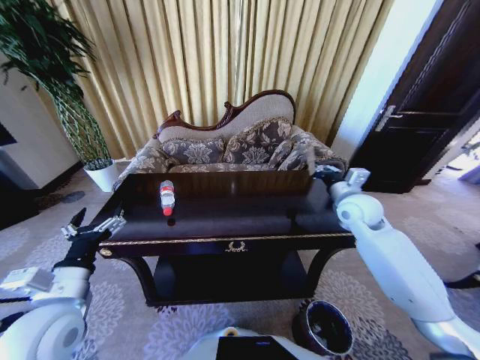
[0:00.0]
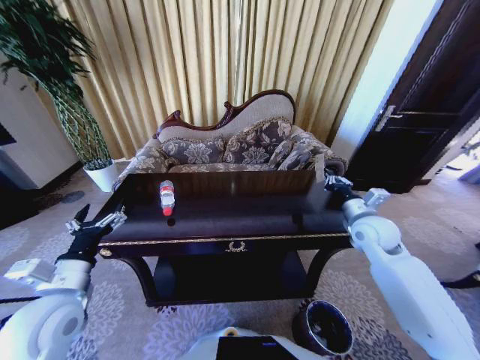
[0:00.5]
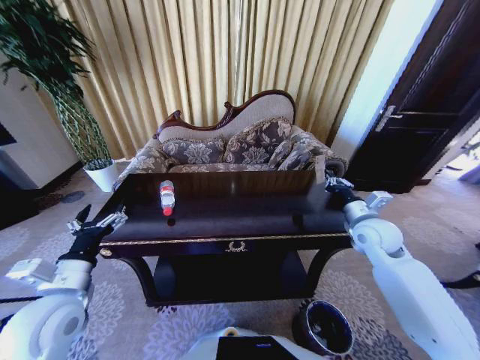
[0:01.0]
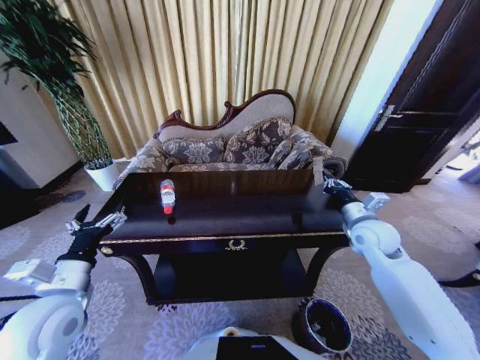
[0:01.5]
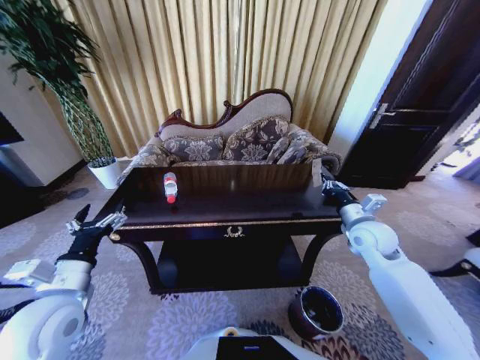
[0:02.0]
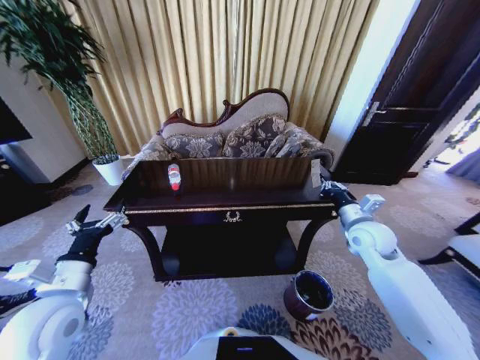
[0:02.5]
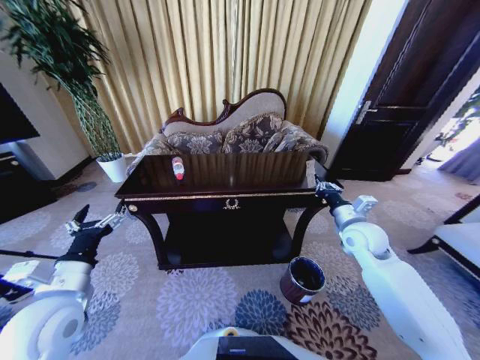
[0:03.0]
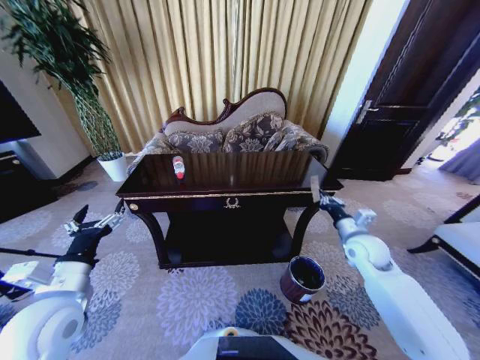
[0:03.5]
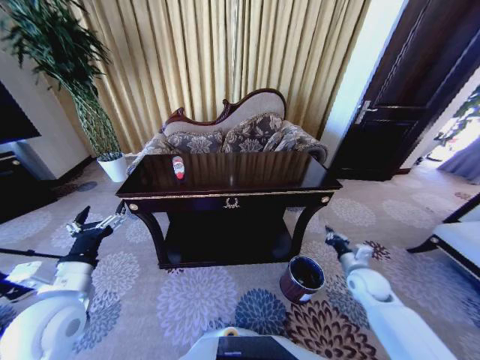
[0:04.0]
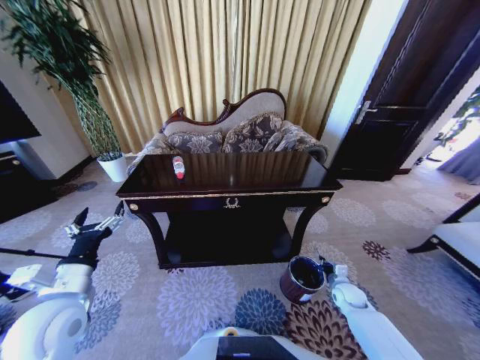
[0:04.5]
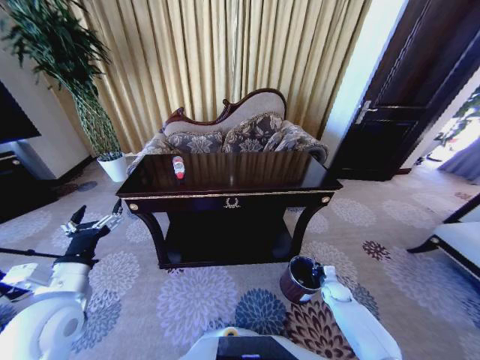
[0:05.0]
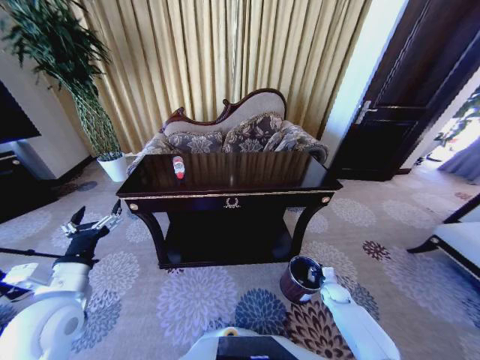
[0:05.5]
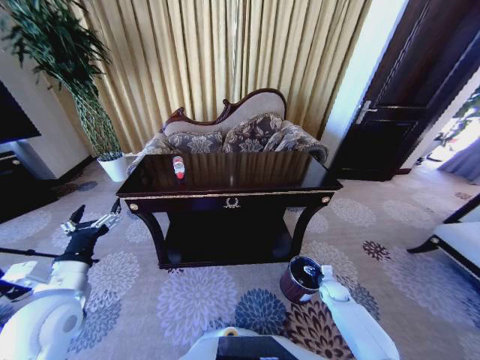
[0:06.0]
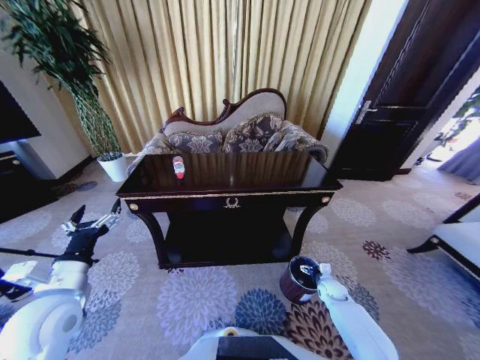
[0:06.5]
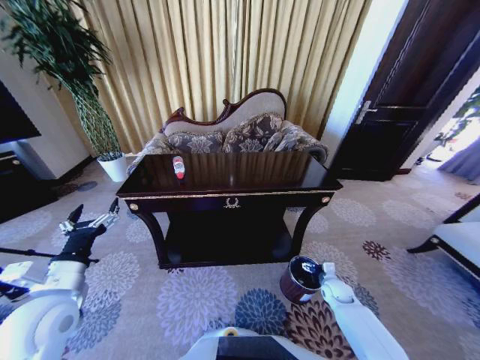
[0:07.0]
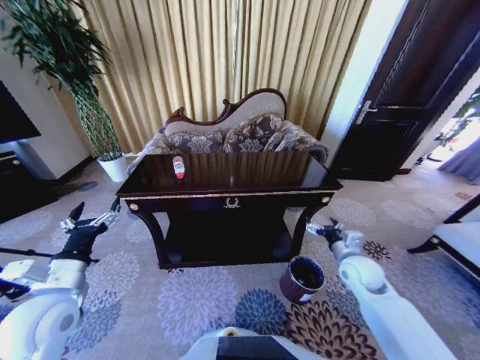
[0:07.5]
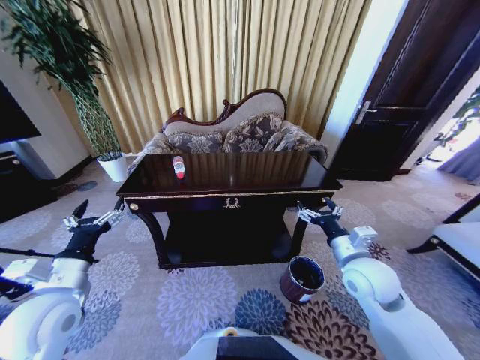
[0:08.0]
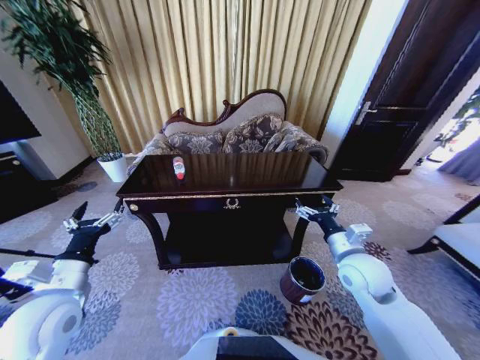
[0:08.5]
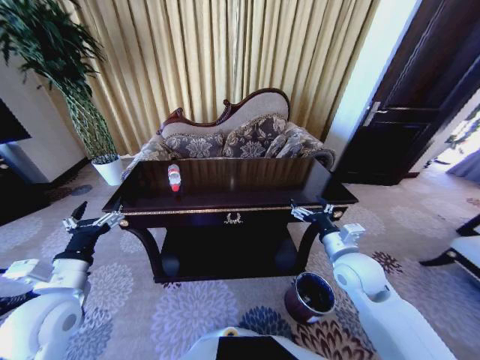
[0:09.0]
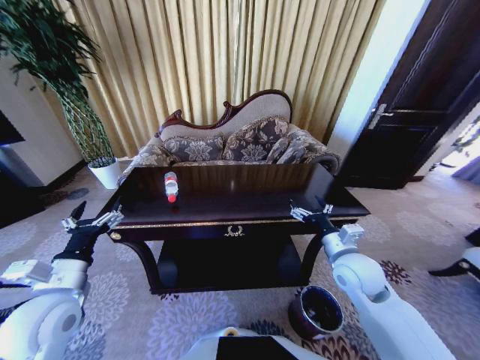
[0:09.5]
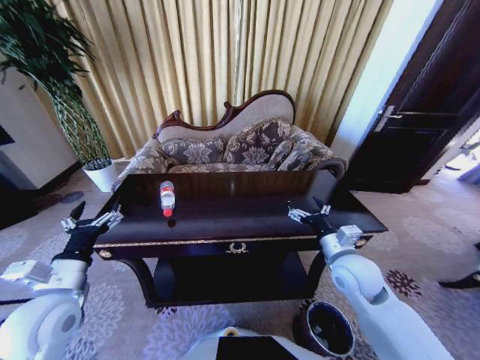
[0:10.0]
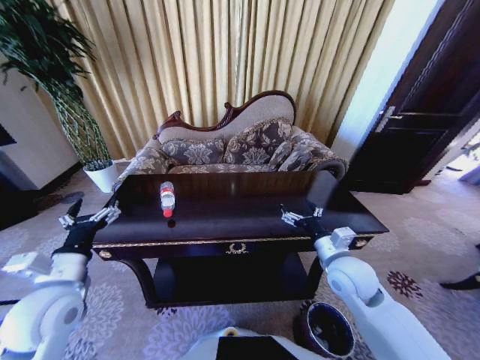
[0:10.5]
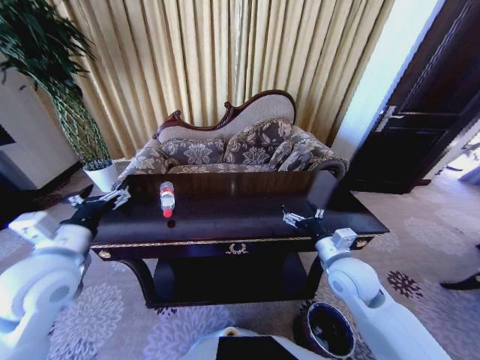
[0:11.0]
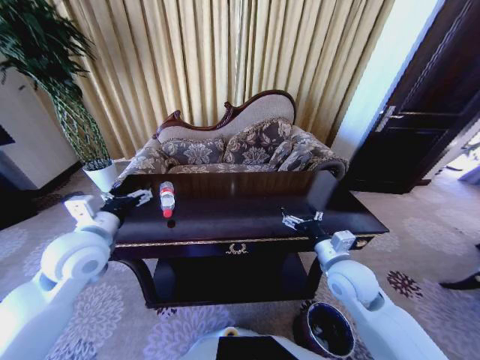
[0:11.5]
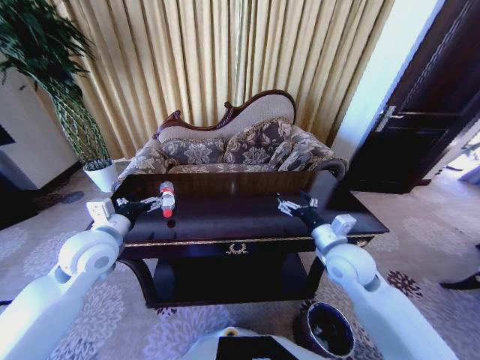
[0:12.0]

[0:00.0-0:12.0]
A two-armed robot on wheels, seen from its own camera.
Task of the whole recording: Move to the front of the table and place the trash on the table into the trash bin.
0:00.0 to 0:02.0: The right gripper is displaced backward by some 5 cm.
0:02.0 to 0:04.0: The right gripper is displaced downward by about 15 cm.
0:04.0 to 0:06.0: The right gripper moves downward, approximately 15 cm, and opens.
0:06.0 to 0:08.0: The right gripper goes roughly 35 cm upward.
0:10.0 to 0:12.0: The left gripper goes some 10 cm forward.

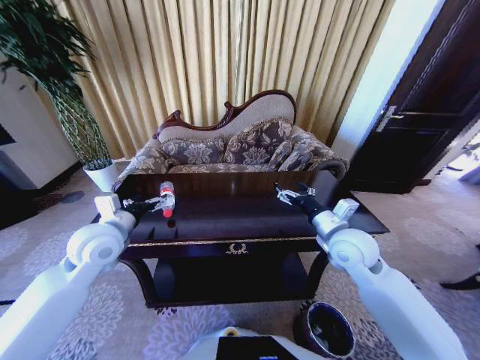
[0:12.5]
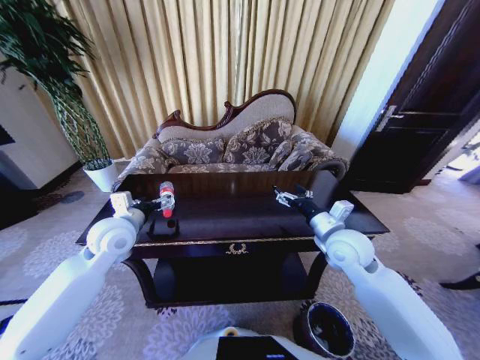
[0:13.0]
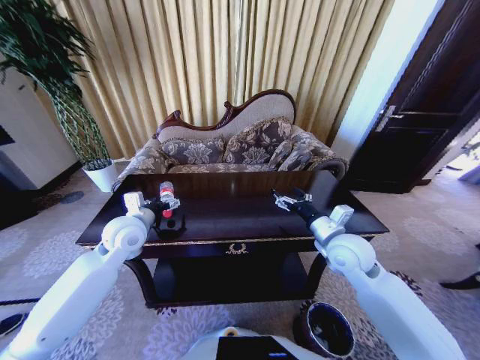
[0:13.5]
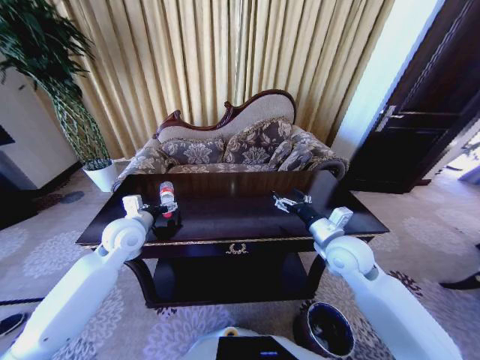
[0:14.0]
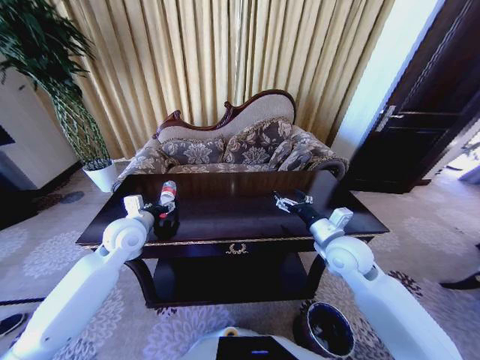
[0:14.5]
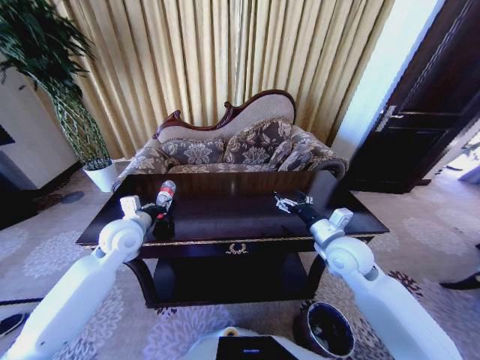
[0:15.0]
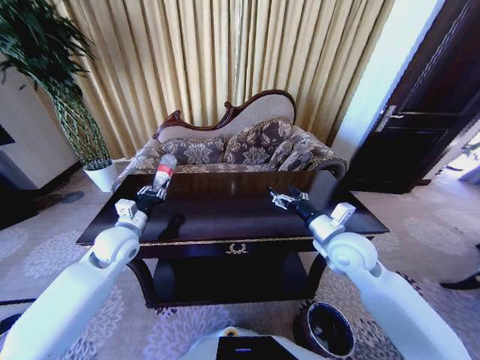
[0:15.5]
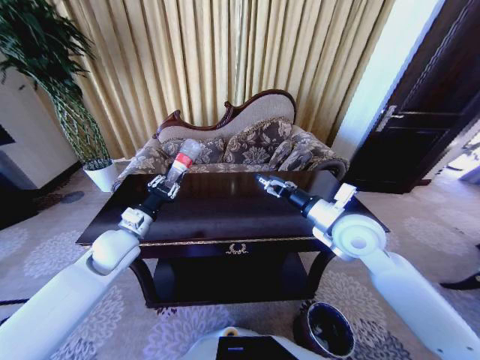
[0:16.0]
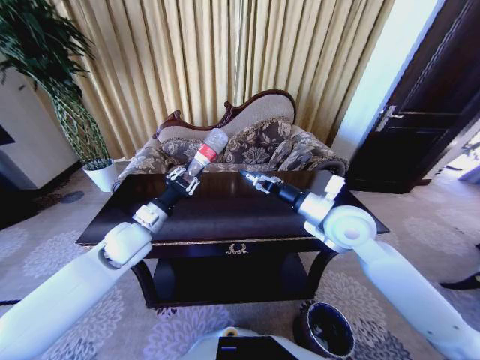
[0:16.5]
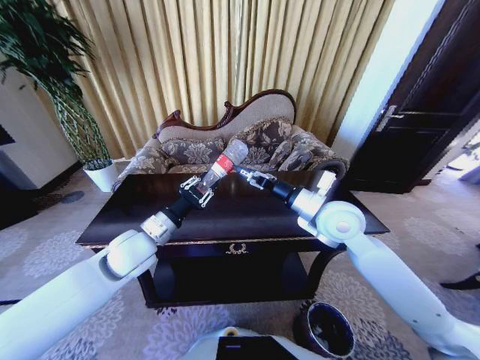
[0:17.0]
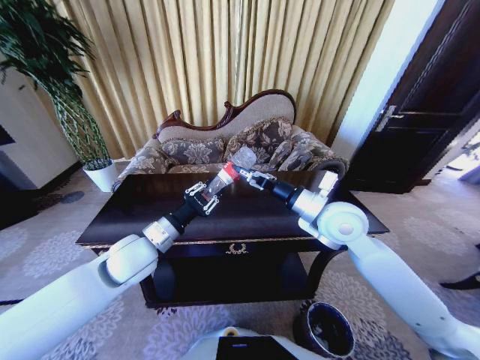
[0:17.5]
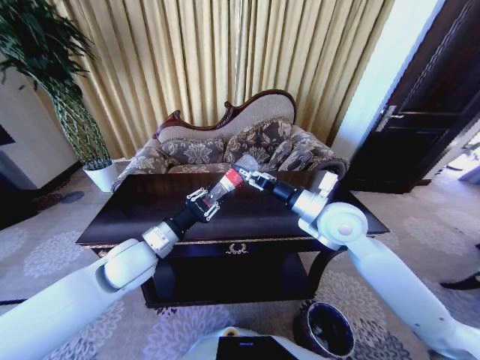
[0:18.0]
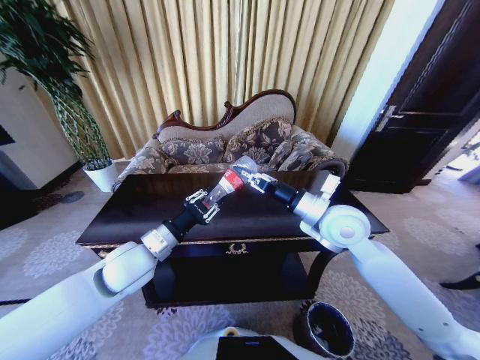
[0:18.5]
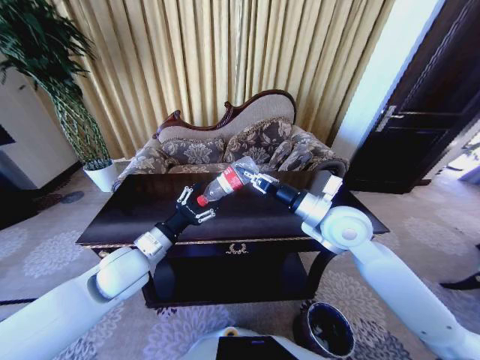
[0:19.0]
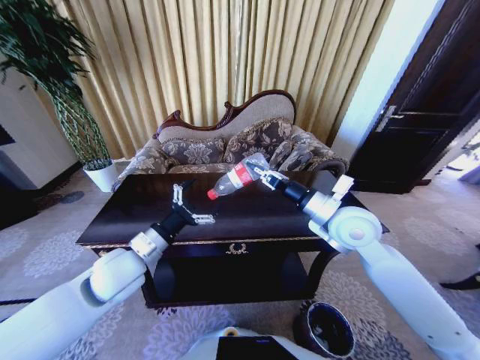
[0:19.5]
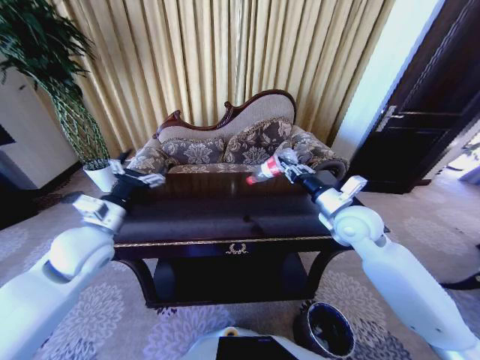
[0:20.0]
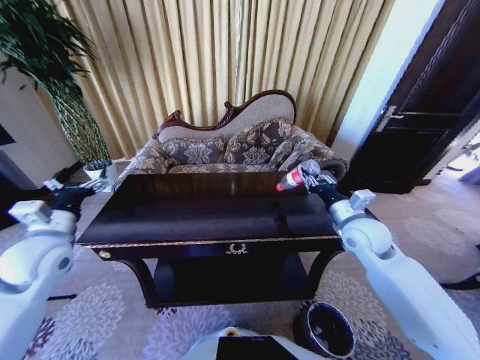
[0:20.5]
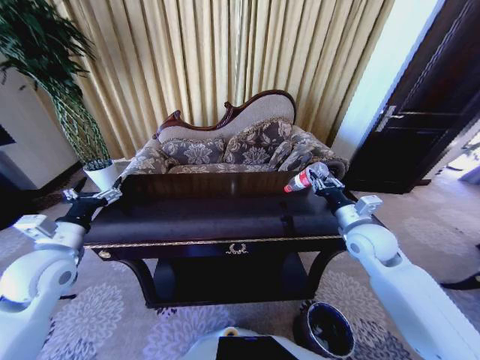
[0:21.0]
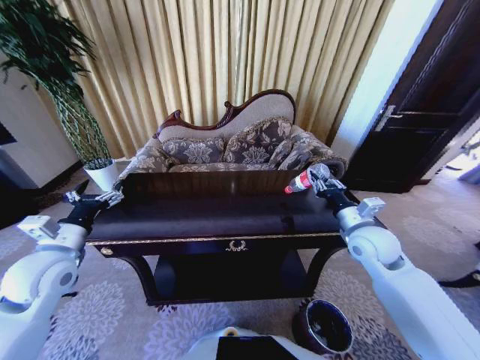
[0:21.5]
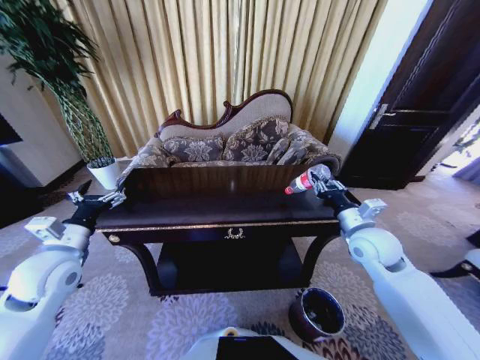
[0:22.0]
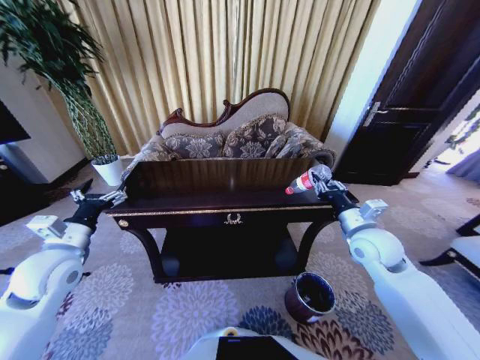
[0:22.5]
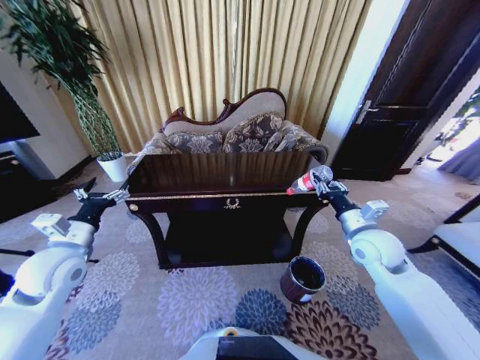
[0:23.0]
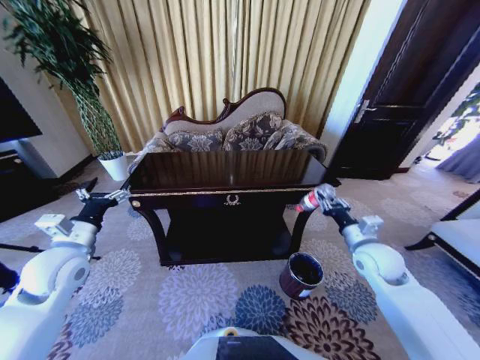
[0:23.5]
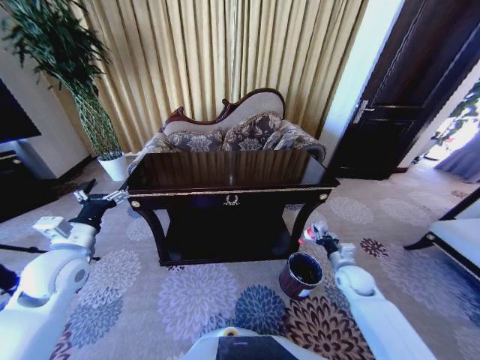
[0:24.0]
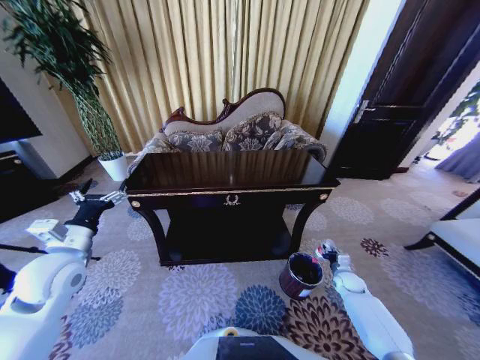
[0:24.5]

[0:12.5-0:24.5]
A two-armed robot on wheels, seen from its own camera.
Task of the whole recording: Move to the front of the table and place the trash on the table into the trash bin.
0:12.5 to 0:14.5: The left gripper shifts by approximately 5 cm, and closes.
0:14.5 to 0:16.5: The right gripper heads upward, covering approximately 10 cm; the left gripper closes its fingers.
0:16.5 to 0:18.5: The right gripper closes up. Meanwhile the left gripper travels backward by some 5 cm.
0:18.5 to 0:20.5: The right gripper is displaced to the right and downward by approximately 10 cm. Meanwhile the left gripper is displaced to the left by roughly 20 cm, and opens up.
0:22.5 to 0:24.5: The right gripper is displaced downward by about 30 cm.

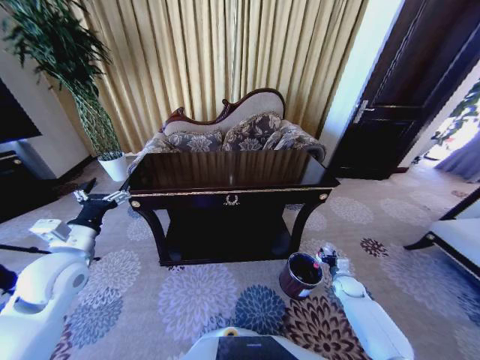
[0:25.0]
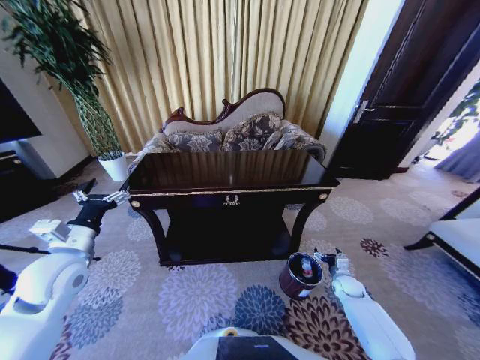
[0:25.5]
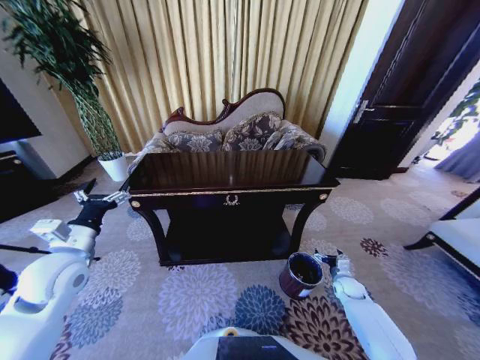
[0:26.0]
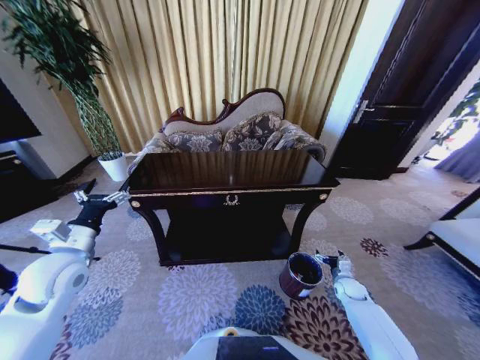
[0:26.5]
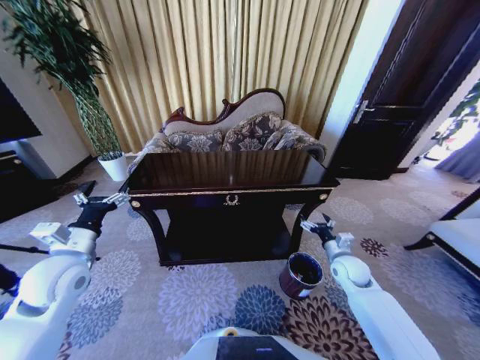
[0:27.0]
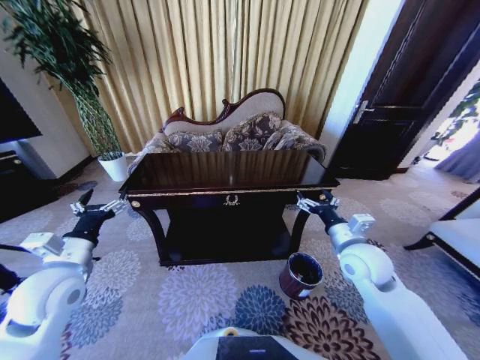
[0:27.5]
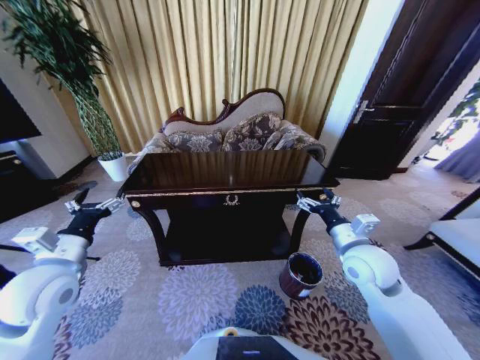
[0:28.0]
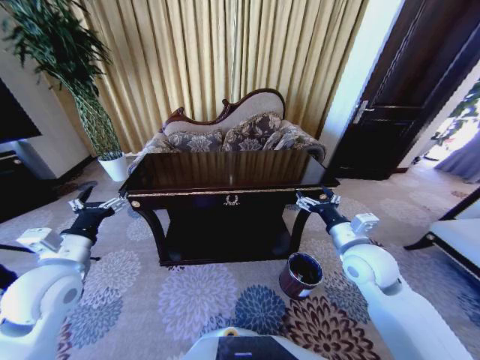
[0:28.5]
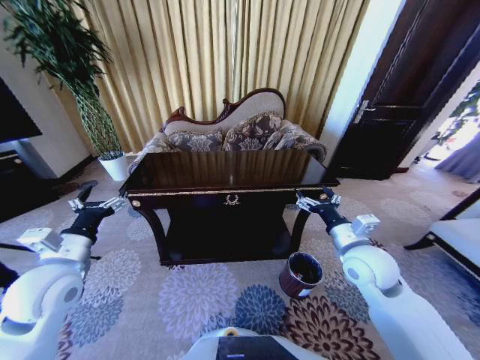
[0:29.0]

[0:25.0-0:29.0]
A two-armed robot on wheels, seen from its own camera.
Task of the whole recording: Move to the front of the table and place the trash on the table into the trash bin.
0:25.0 to 0:27.0: The right gripper shifts roughly 20 cm upward and to the left, and opens up.
0:27.0 to 0:29.0: The right gripper moves upward and to the left, about 15 cm.
